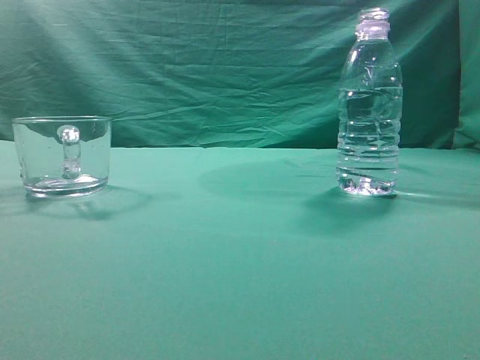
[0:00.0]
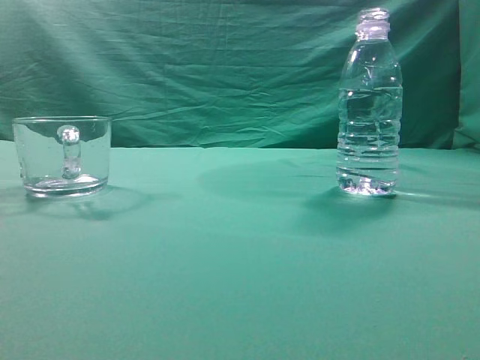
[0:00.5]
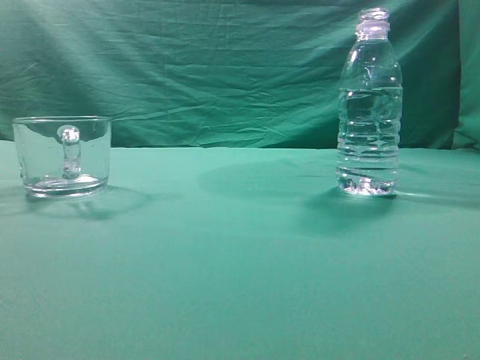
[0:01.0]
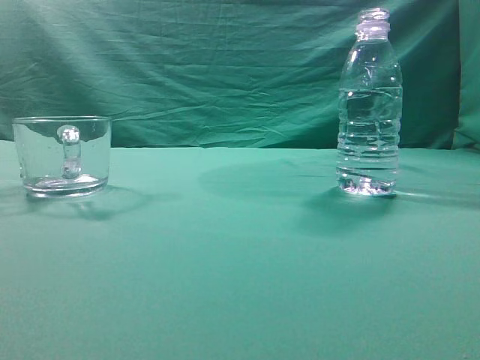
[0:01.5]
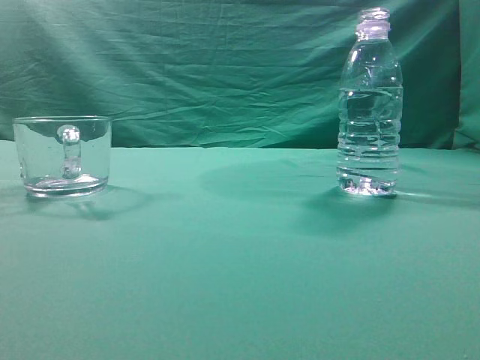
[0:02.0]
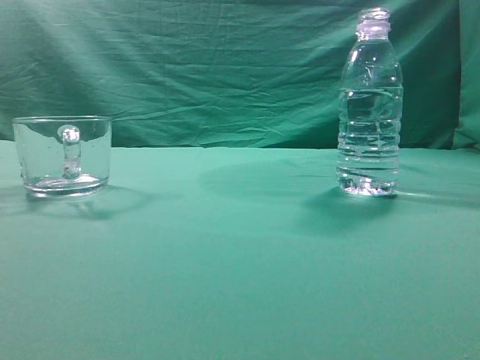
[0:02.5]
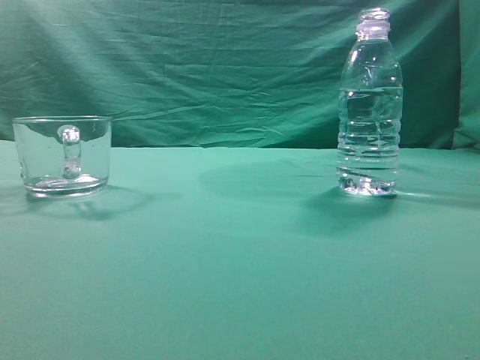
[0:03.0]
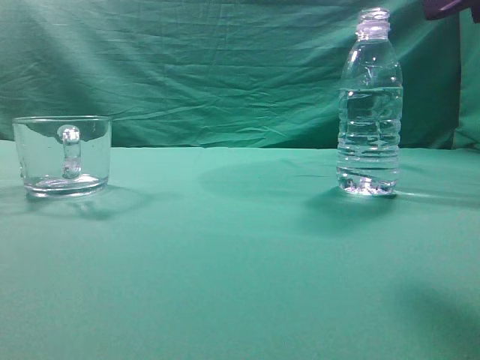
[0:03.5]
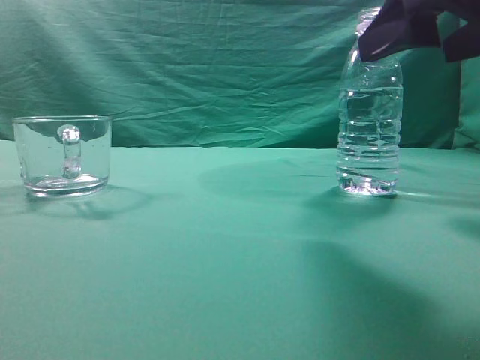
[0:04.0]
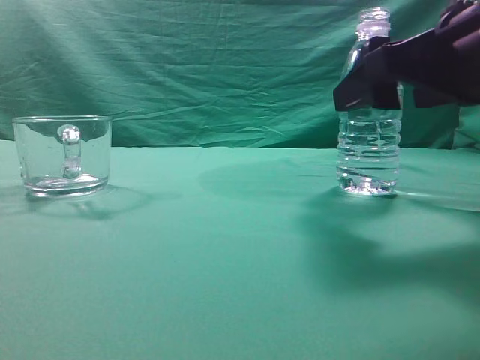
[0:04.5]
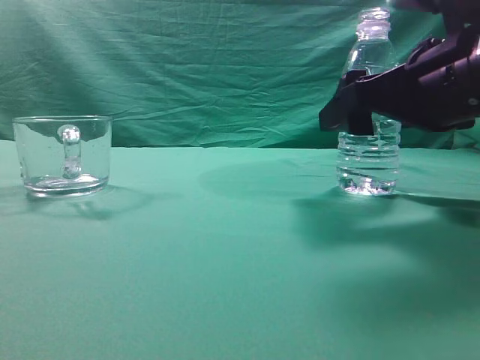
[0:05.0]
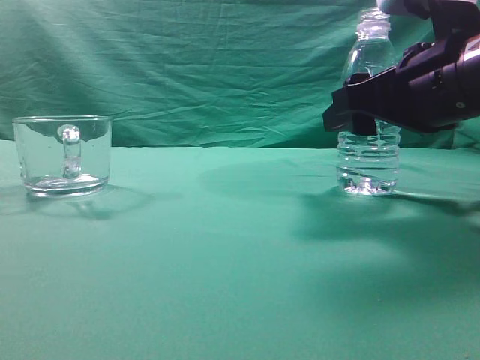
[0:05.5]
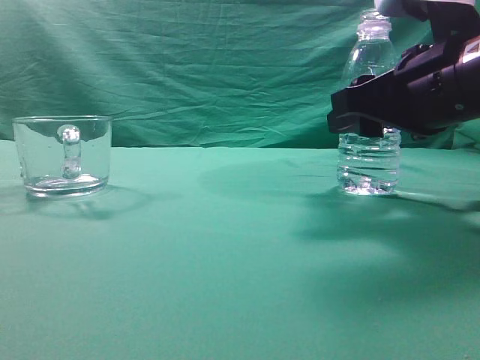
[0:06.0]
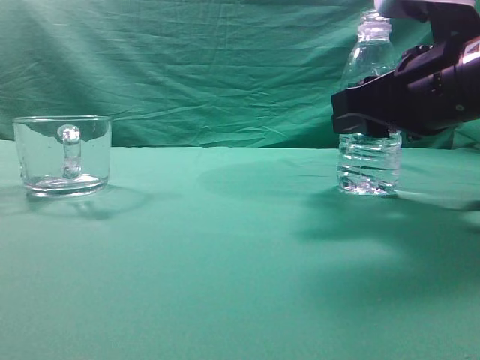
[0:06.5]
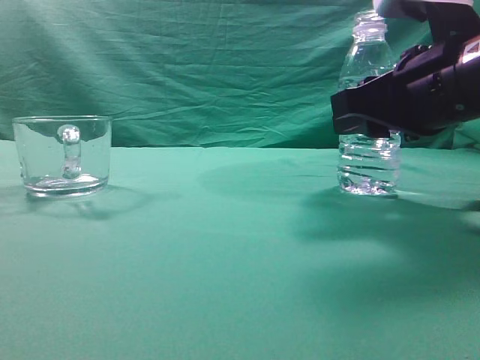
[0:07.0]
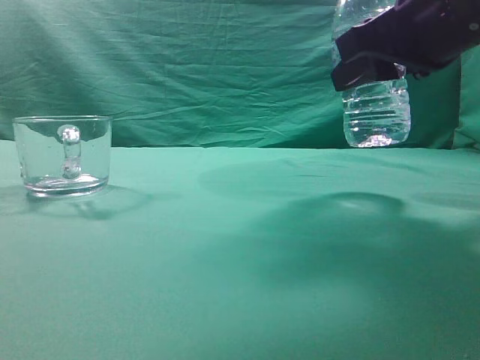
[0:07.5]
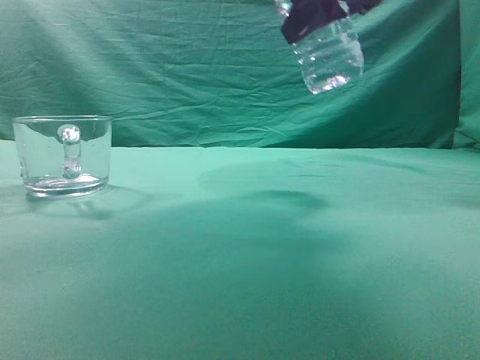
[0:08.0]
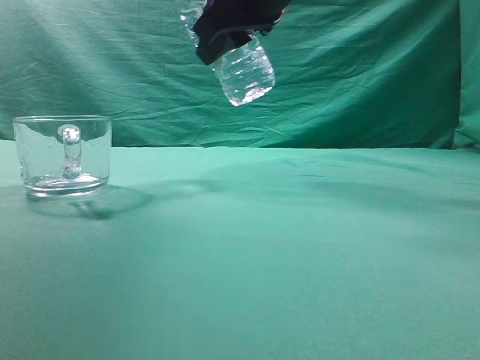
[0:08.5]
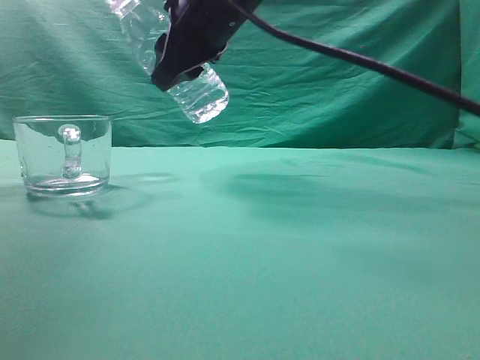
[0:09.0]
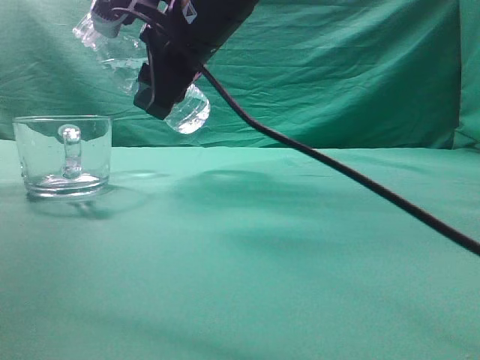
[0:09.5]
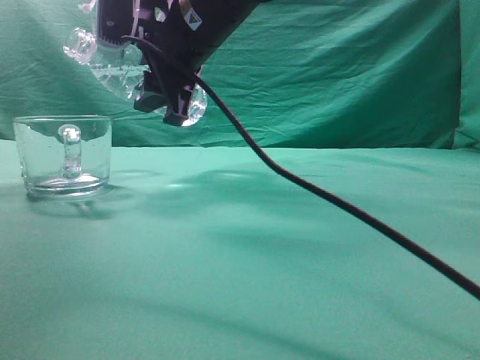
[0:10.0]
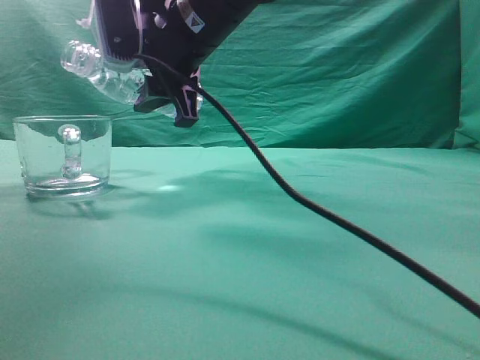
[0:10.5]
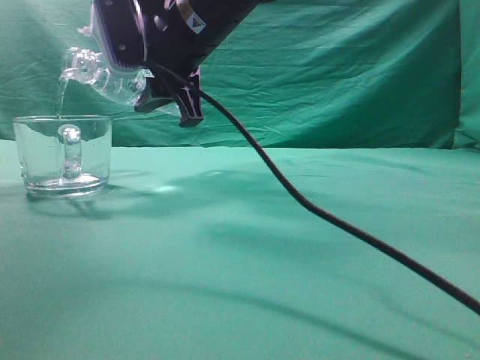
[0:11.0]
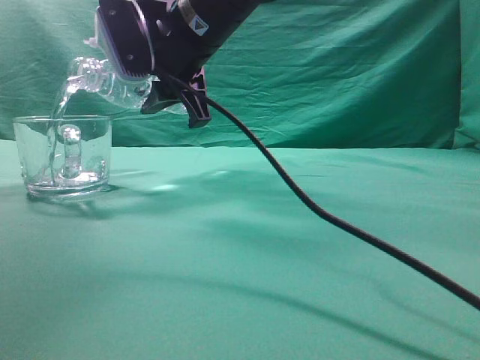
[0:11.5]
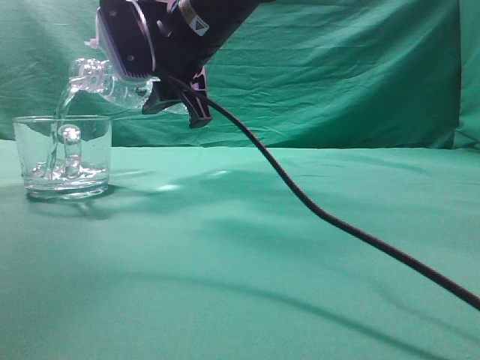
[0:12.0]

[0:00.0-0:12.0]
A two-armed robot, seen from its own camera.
Task of the whole recording: pick up the water bottle and pour the water in it into the glass.
Step, 0:00.0 to 0:07.5: Grasp the mineral water bottle.
0:02.0 to 0:04.0: The right gripper shifts roughly 20 cm forward, to the left and downward, and opens up.
0:04.0 to 0:06.0: The right gripper is displaced forward and downward by some 10 cm, and closes its fingers.
0:06.0 to 0:08.0: The right gripper moves upward and to the left, roughly 15 cm.
0:08.0 to 0:10.0: The right gripper shifts some 20 cm to the left, forward and downward.
0:10.0 to 0:12.0: The grippers stay close to where they were, moving slightly.

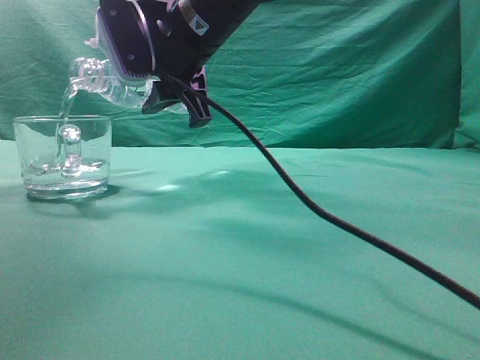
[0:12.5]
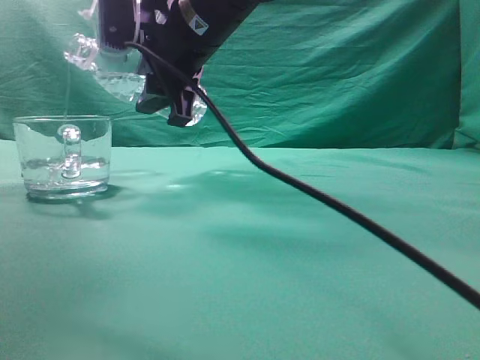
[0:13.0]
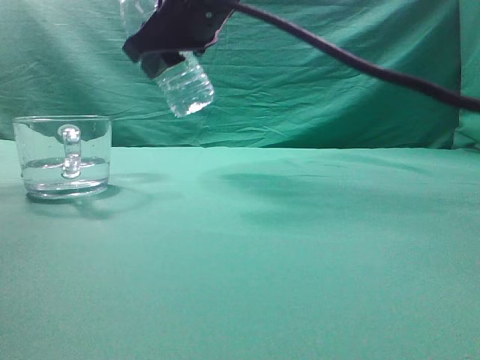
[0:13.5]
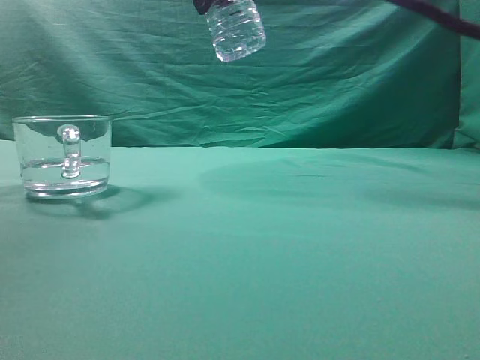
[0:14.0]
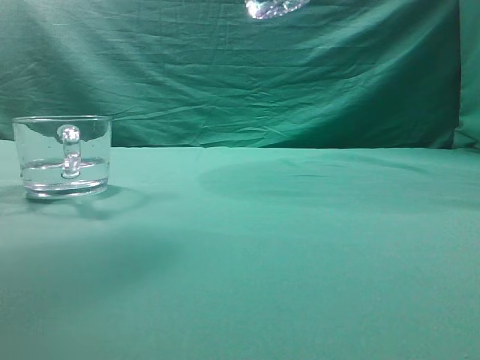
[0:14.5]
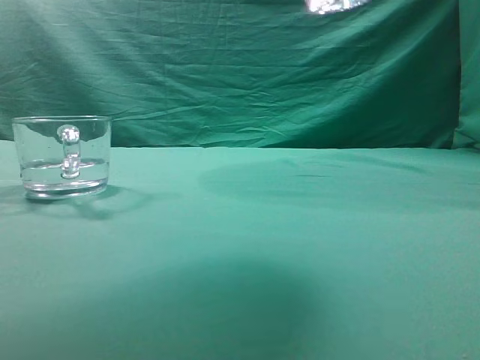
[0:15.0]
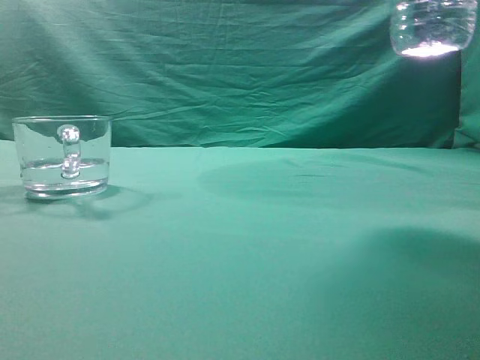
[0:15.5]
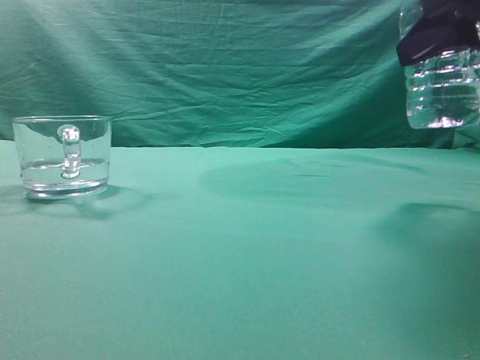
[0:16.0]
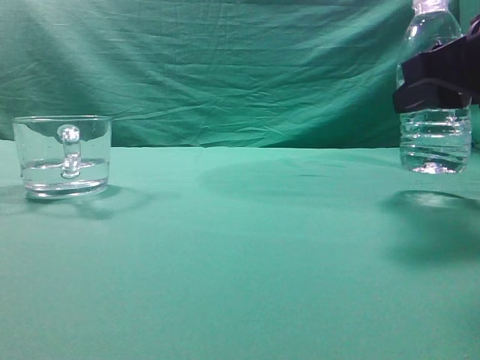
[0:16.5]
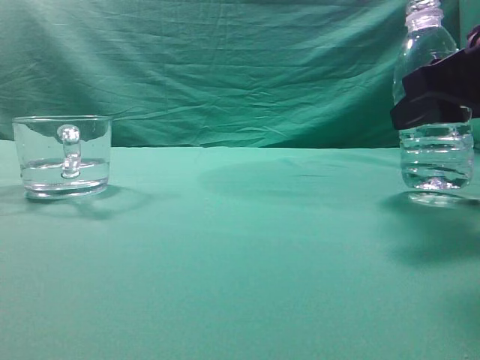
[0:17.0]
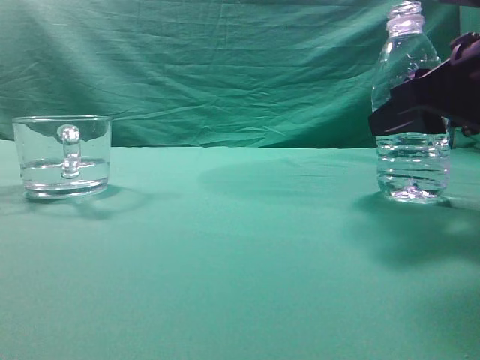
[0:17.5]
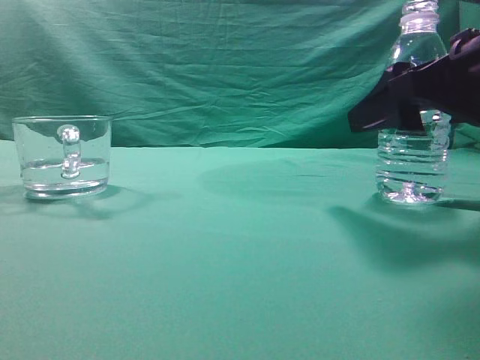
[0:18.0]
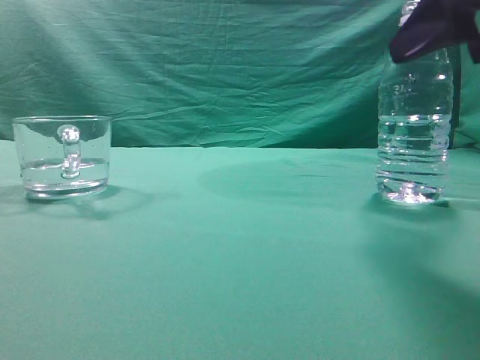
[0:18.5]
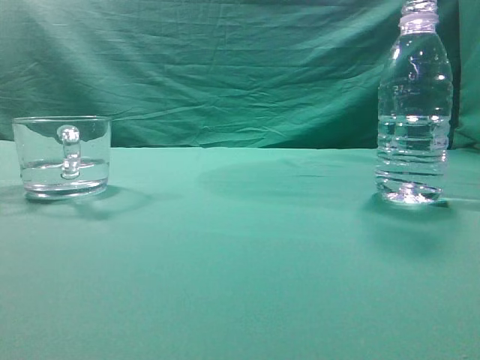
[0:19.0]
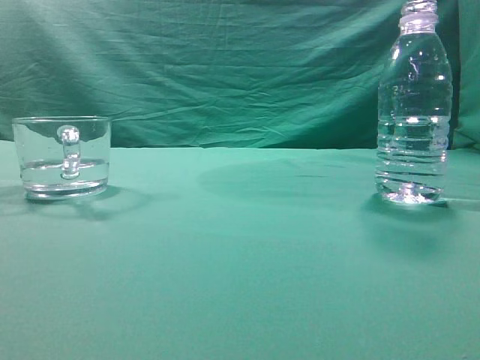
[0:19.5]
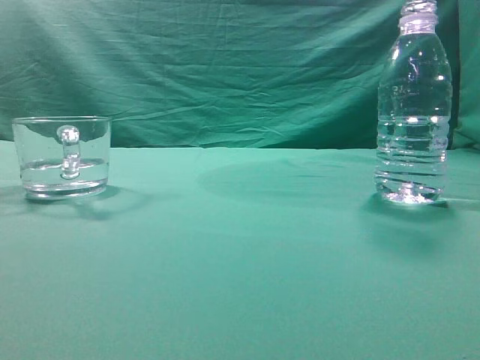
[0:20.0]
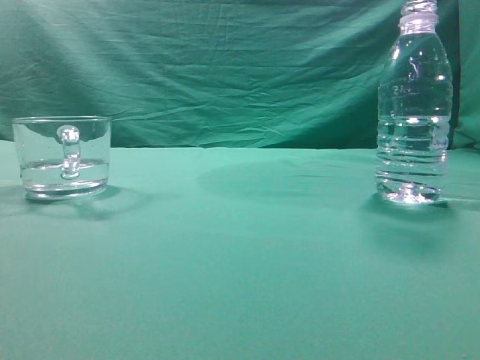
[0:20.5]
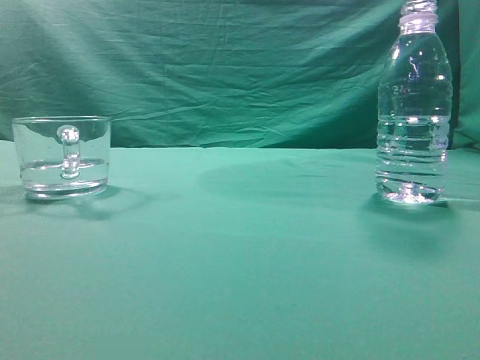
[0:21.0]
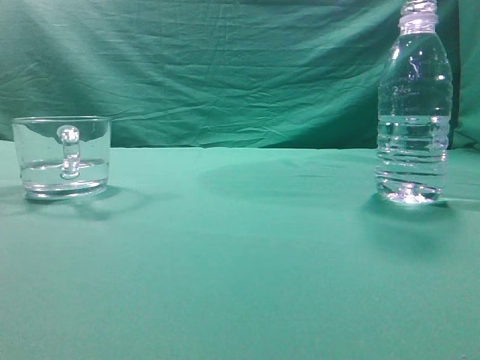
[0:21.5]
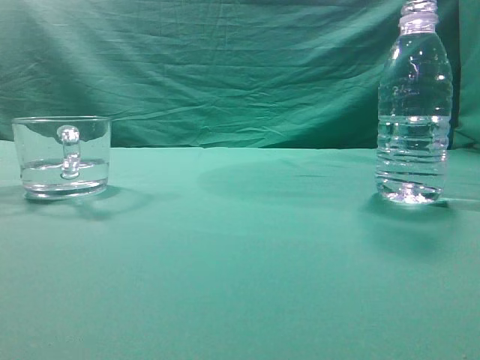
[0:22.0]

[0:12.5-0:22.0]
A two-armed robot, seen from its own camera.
Task of the whole recording: pick up the water bottle and pour the water in it into the glass.
0:12.5 to 0:14.5: The right gripper travels backward, to the right and upward by roughly 20 cm.
0:14.5 to 0:16.5: The right gripper goes approximately 20 cm downward and to the right.
0:16.5 to 0:18.0: The right gripper opens.
0:18.0 to 0:20.0: The right gripper shifts approximately 25 cm backward and upward, and closes up.
